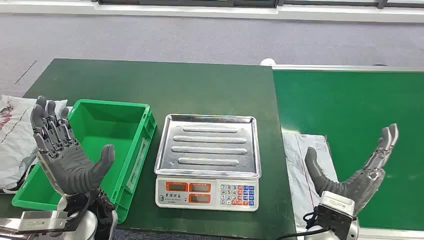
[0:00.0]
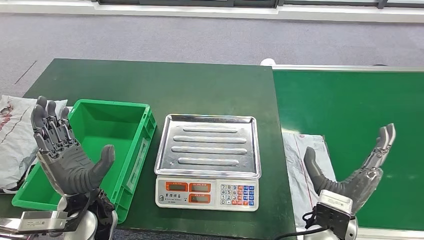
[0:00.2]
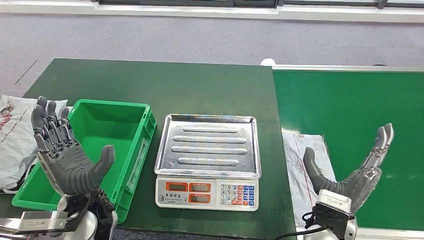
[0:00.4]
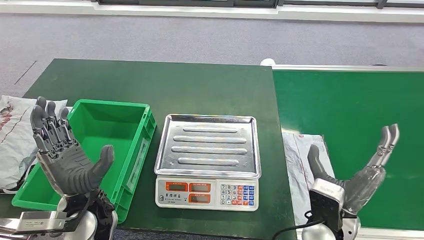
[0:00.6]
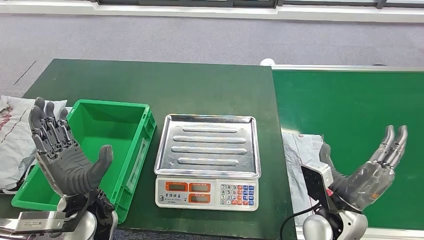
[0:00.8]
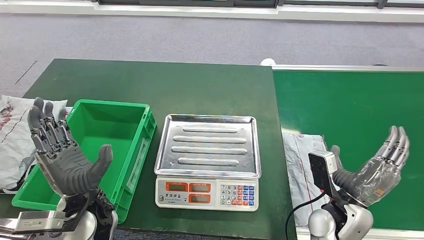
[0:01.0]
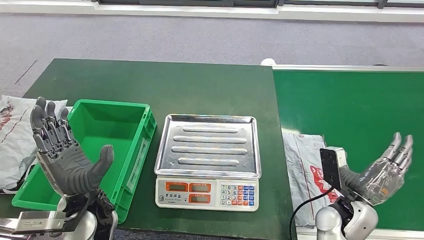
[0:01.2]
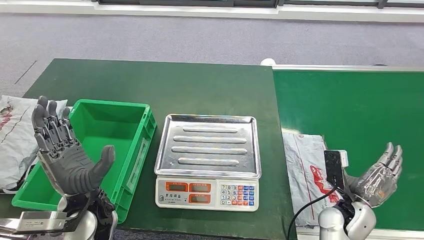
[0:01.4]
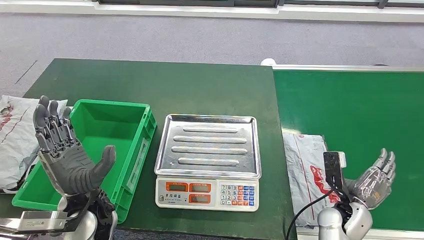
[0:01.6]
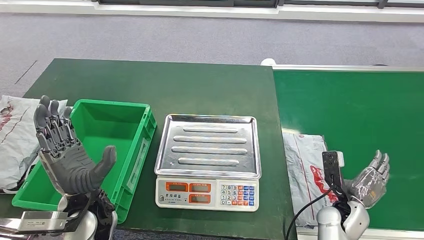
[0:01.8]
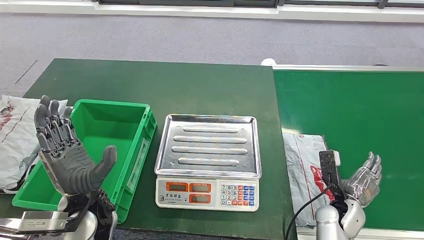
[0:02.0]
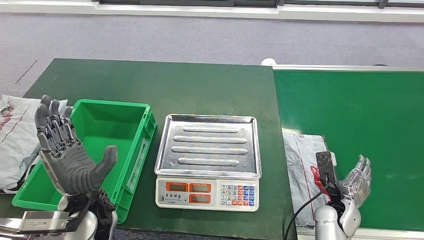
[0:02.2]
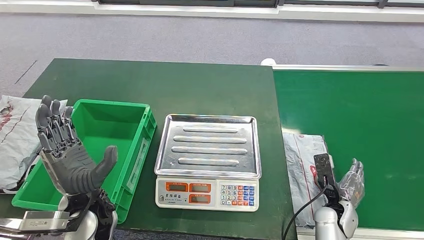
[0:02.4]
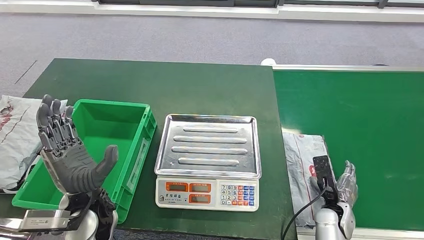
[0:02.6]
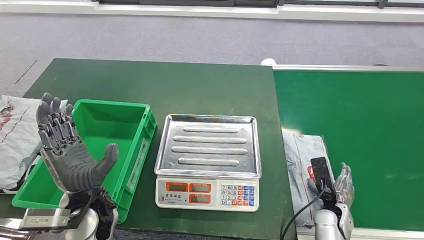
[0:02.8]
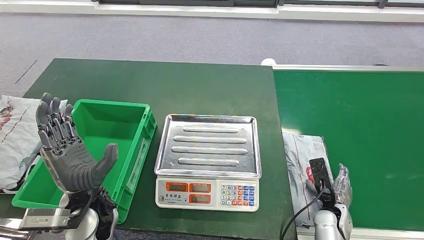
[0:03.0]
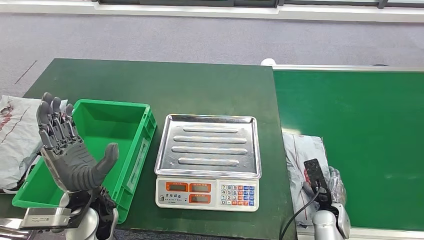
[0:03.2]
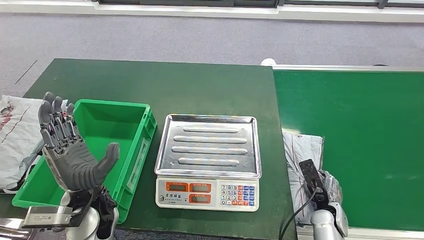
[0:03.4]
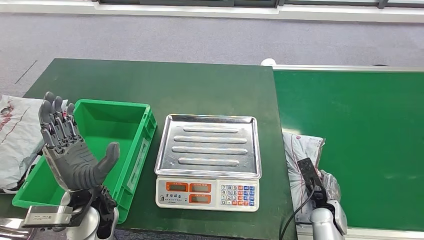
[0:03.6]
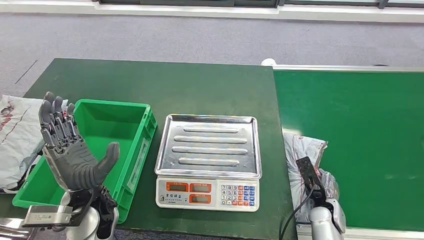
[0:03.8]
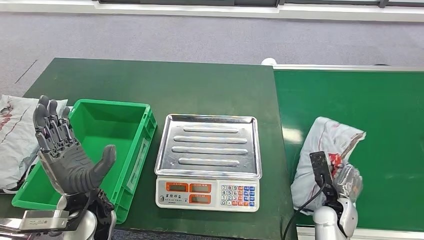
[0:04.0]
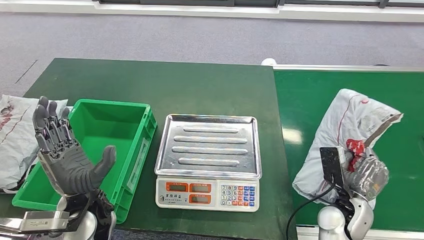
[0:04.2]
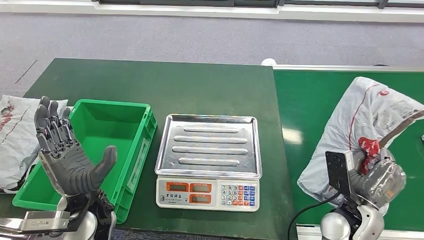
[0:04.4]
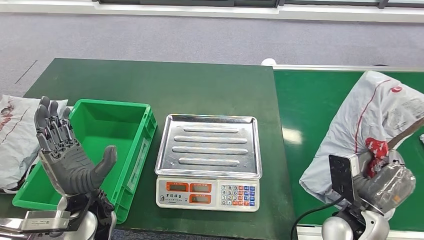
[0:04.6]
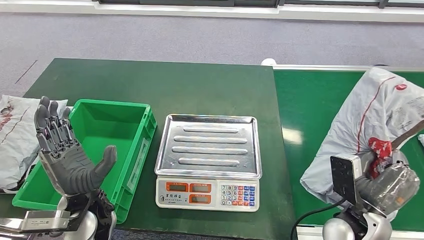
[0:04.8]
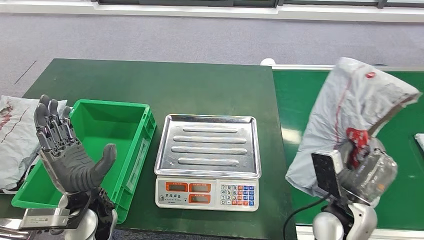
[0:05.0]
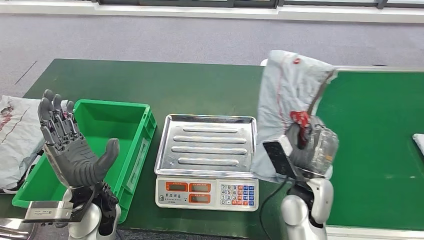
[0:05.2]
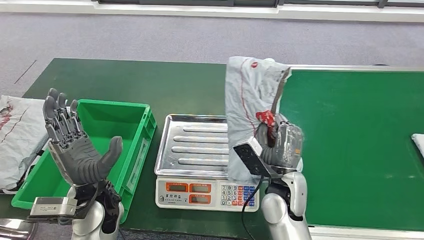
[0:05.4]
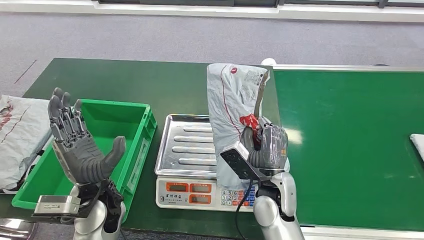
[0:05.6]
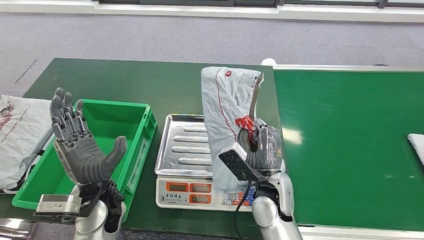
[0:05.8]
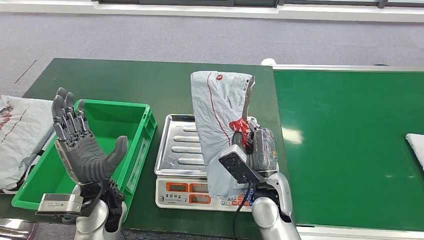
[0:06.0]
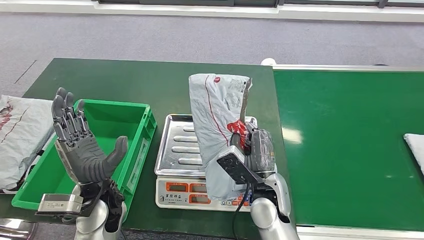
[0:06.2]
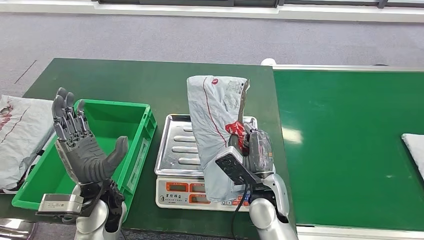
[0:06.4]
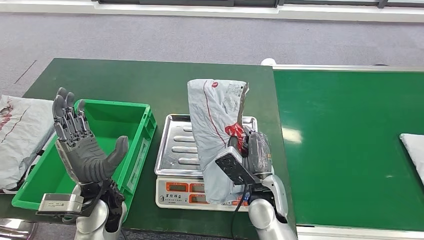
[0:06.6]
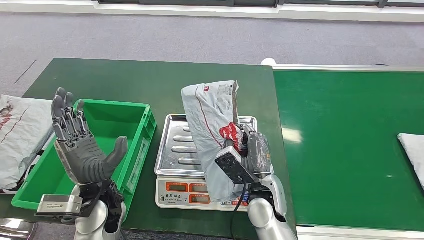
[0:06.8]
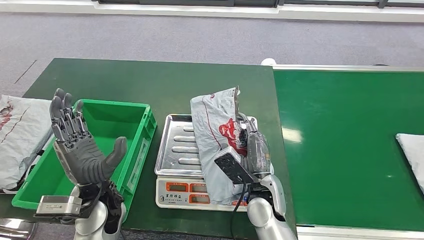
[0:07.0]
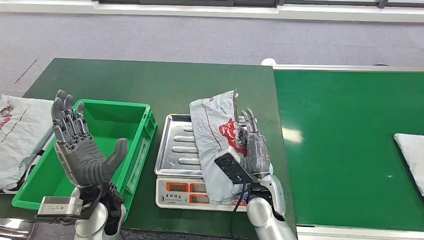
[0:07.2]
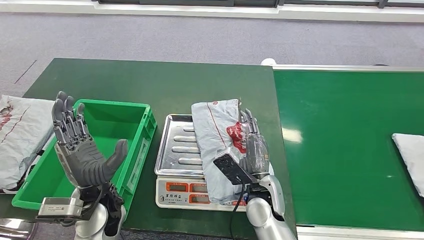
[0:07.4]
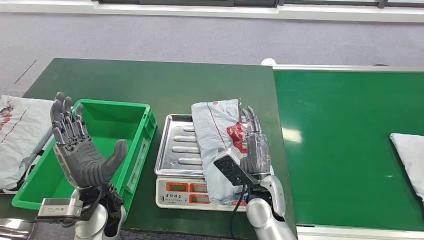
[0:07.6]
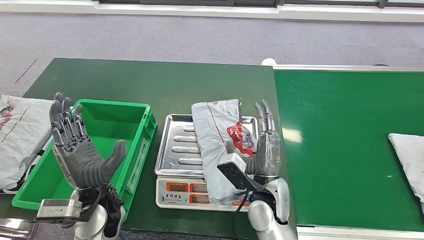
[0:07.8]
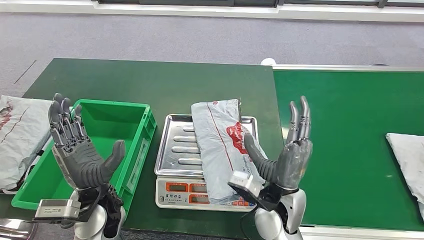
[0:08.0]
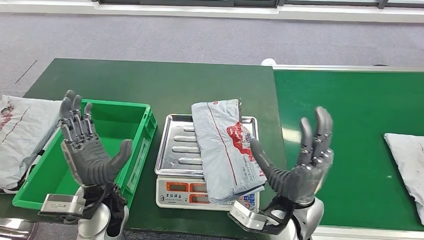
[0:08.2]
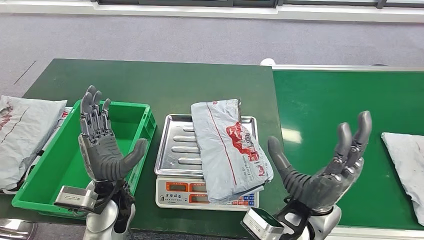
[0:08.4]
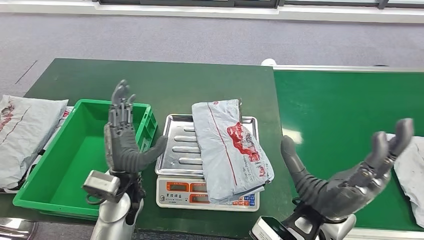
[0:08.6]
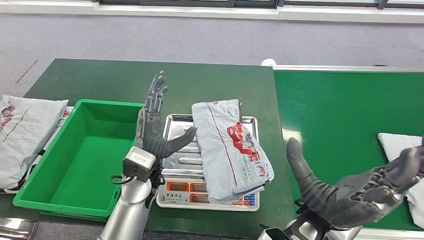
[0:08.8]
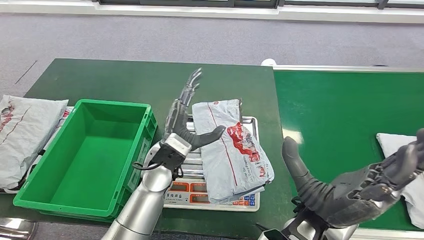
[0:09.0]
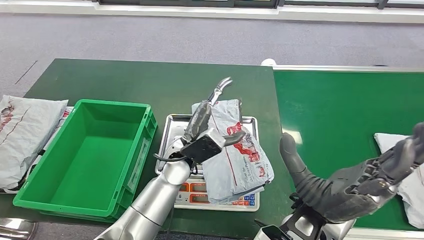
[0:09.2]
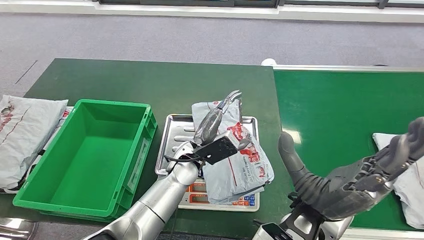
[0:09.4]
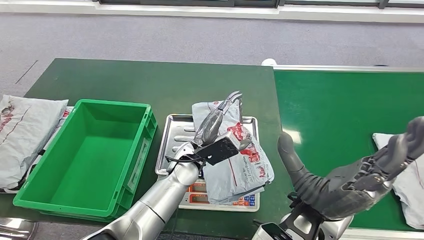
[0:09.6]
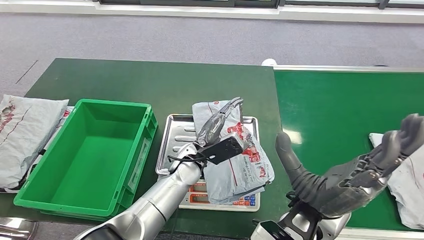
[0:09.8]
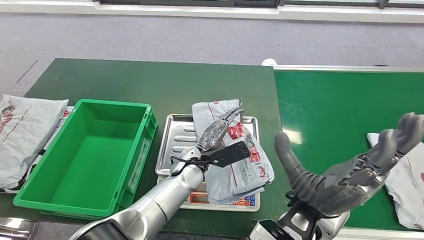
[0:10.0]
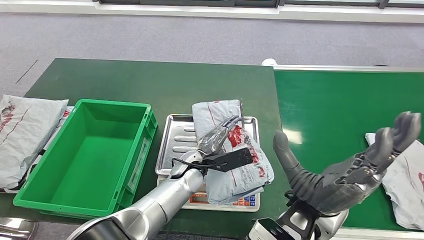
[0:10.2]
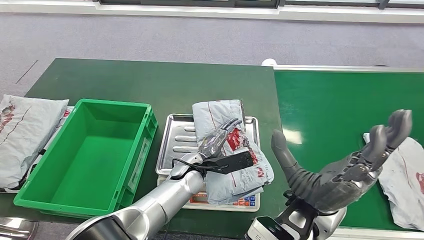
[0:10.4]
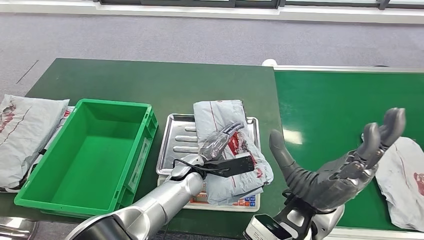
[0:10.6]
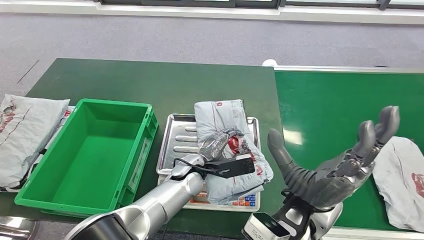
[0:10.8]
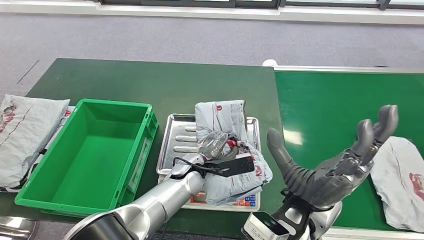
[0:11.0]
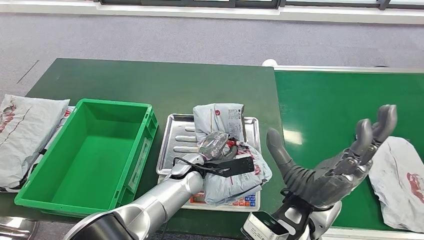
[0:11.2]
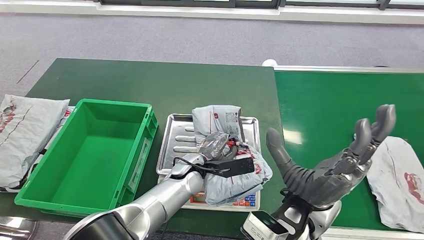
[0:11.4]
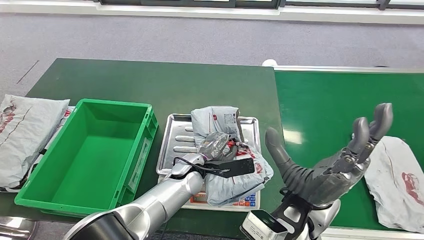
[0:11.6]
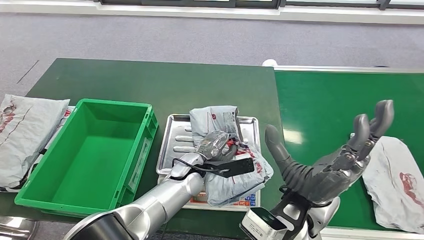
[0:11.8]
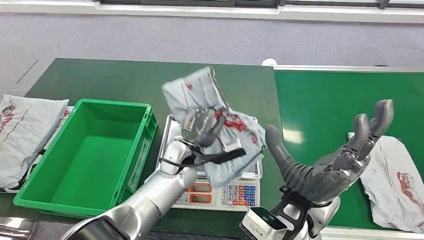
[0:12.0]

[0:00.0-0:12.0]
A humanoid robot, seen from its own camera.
Step, 0:00.0 to 0:04.4: Take the parcel off the conveyor belt.
Step, 0:04.8 to 0:08.0: Place the parcel onto the inbound machine.
0:01.6 to 0:03.0: The right hand goes some 5 cm downward.
0:03.0 to 0:04.4: The right hand goes approximately 10 cm upward.
0:06.0 to 0:07.6: The hands stay close to where they were, moving slightly.
0:09.0 to 0:10.4: The left hand shifts approximately 10 cm downward.

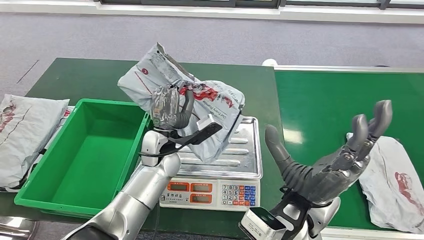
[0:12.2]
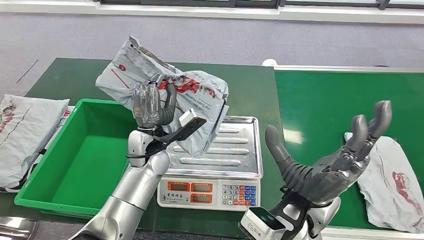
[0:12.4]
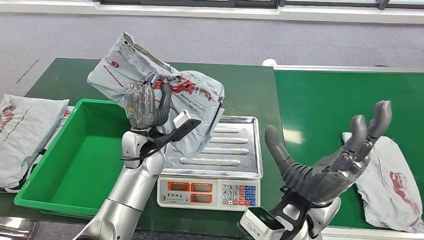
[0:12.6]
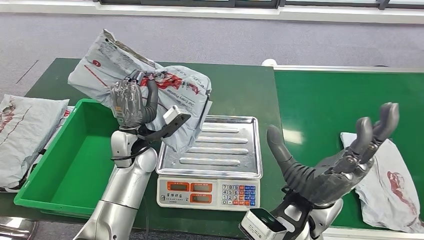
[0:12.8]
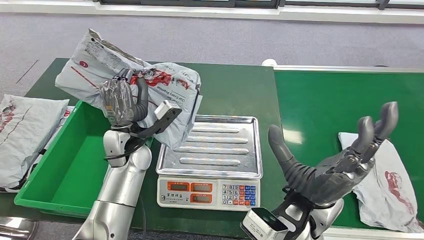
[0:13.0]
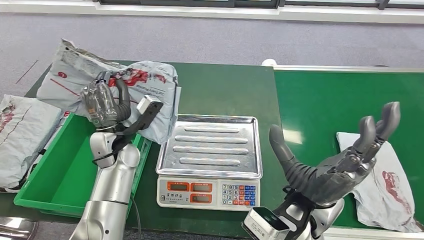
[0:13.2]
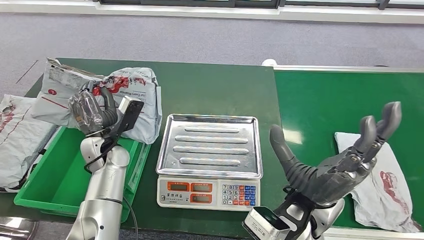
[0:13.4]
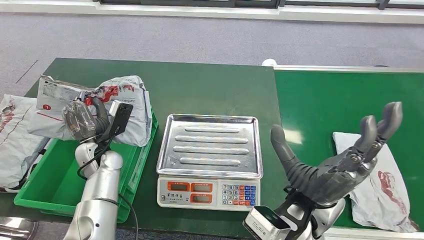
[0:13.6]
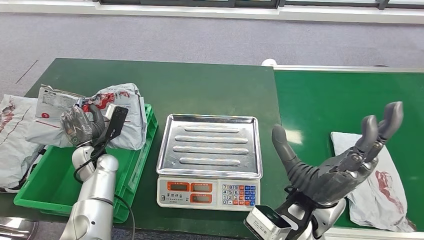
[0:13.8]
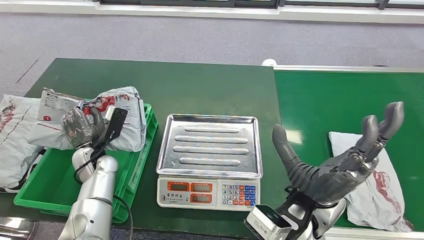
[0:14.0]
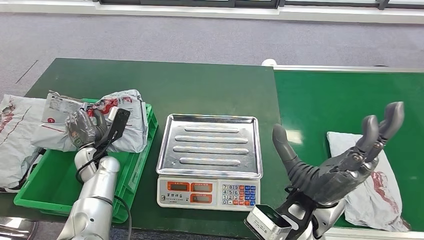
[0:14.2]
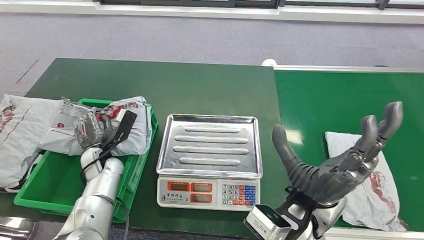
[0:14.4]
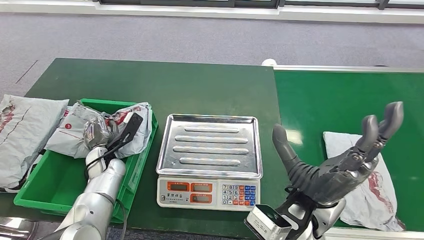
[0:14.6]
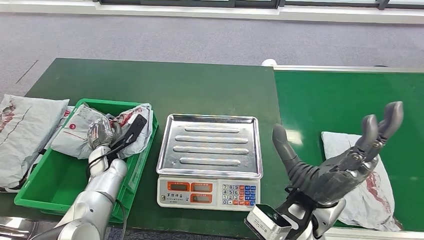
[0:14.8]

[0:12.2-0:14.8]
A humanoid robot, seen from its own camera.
Step, 0:12.8 to 0:14.8: Put the parcel inside the courier box.
0:13.4 to 0:14.8: The left hand travels downward by about 10 cm.

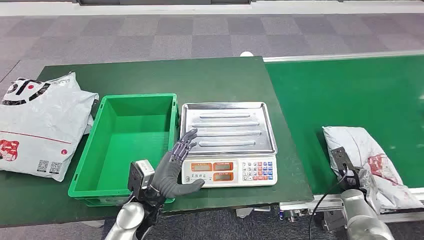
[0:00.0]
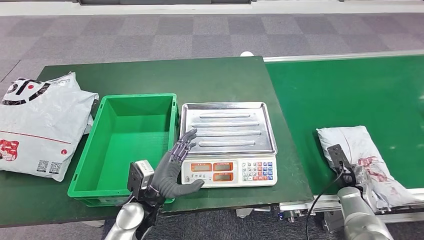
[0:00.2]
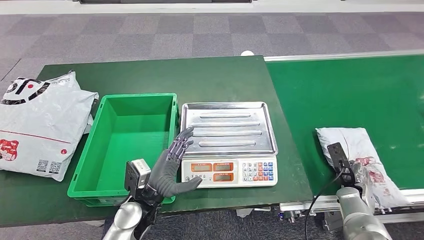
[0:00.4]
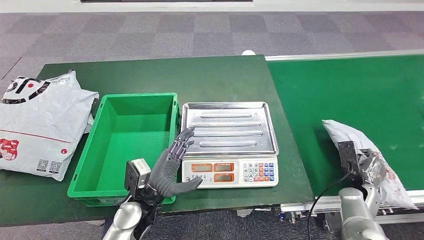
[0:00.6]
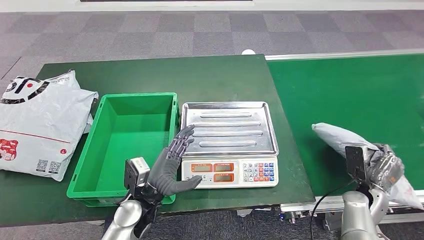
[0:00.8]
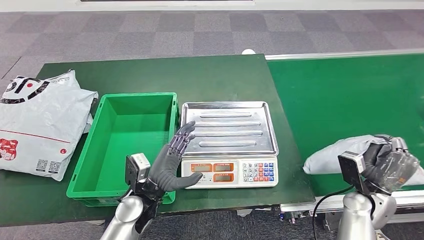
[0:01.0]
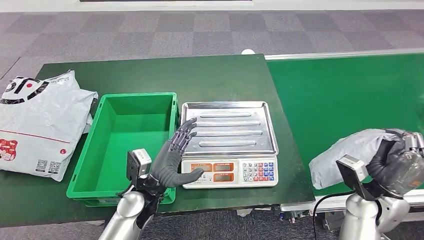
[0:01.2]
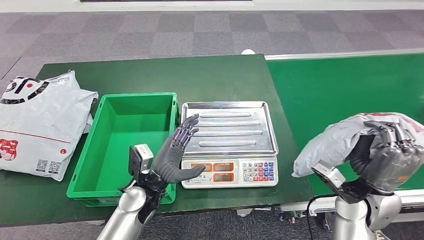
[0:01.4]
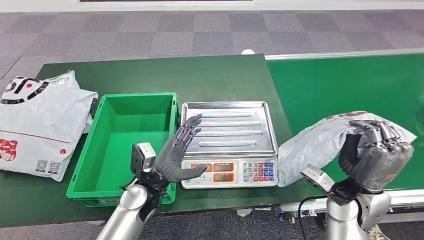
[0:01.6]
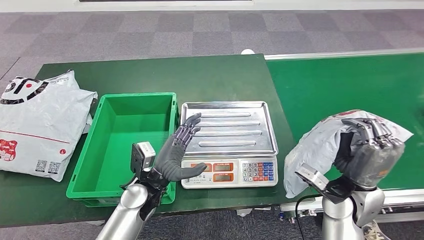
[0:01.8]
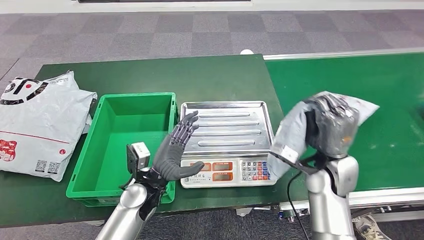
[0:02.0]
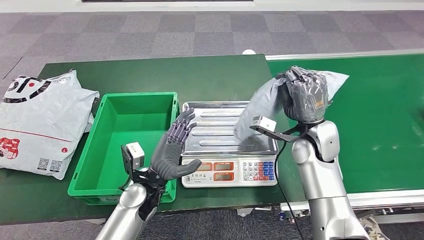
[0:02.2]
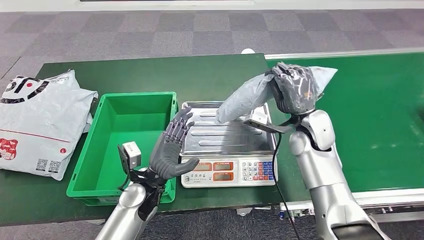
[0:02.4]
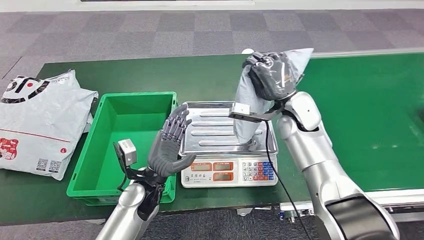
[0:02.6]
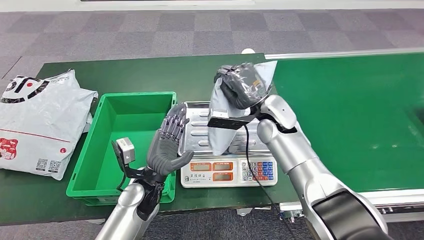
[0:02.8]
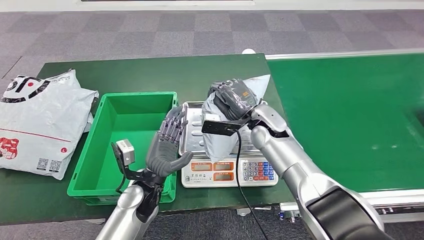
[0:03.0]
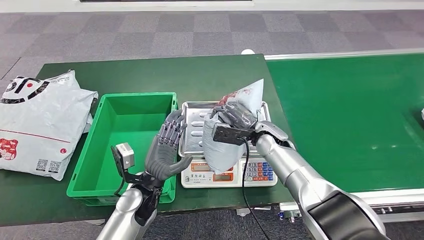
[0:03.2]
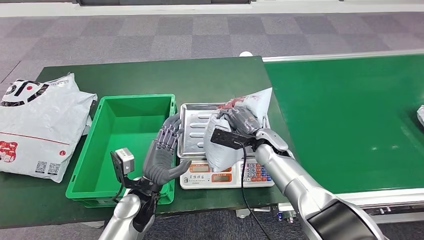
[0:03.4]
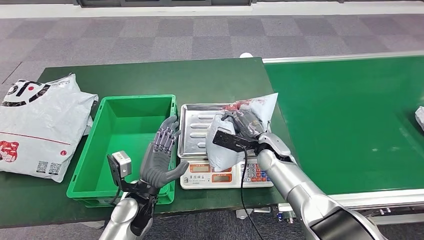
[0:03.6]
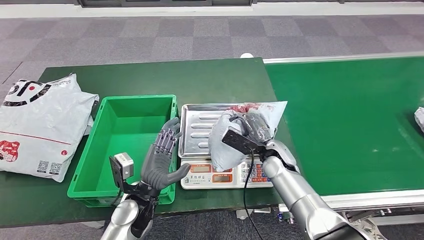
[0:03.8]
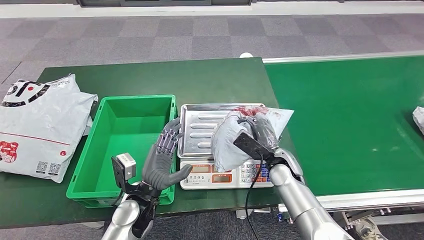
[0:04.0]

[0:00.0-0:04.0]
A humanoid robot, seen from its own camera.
Step, 0:00.0 to 0:01.0: Take the parcel off the conveyor belt.
